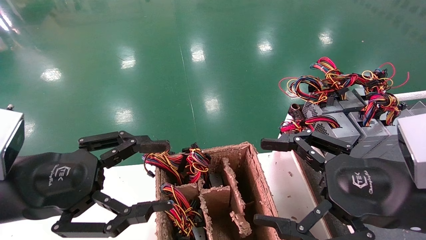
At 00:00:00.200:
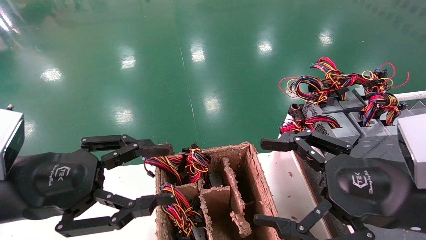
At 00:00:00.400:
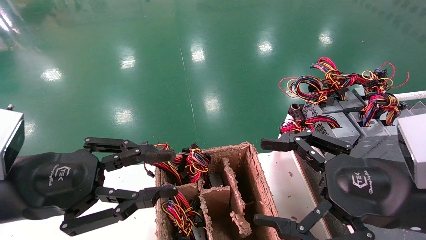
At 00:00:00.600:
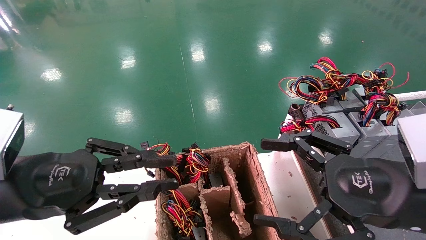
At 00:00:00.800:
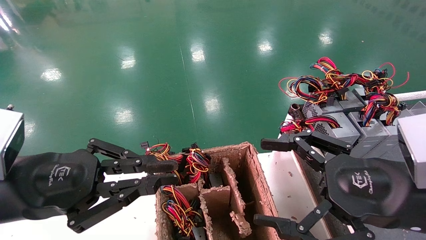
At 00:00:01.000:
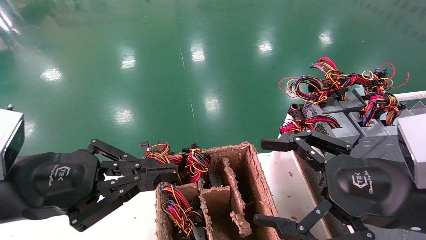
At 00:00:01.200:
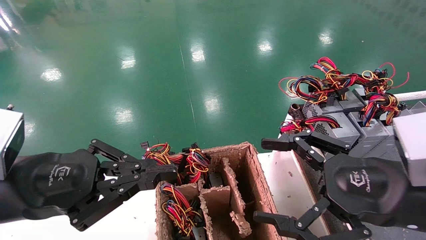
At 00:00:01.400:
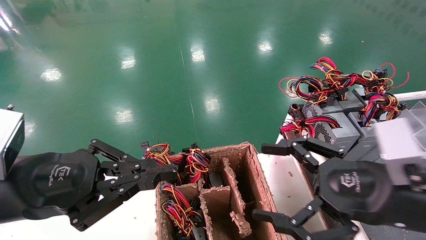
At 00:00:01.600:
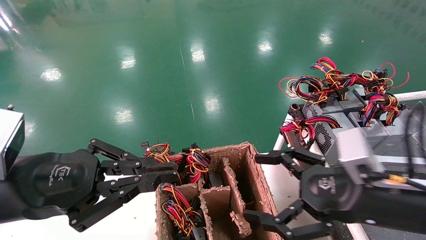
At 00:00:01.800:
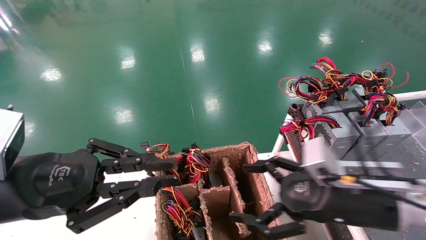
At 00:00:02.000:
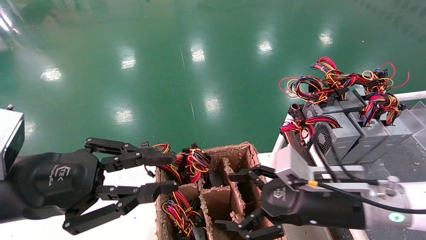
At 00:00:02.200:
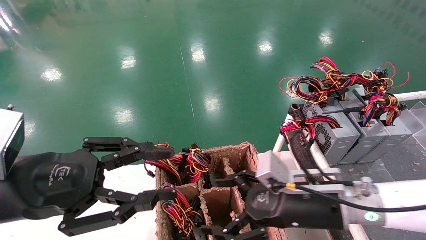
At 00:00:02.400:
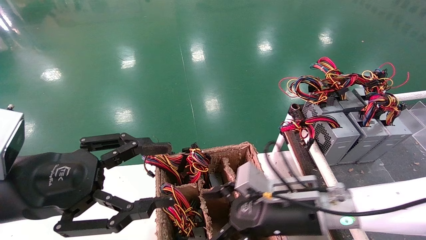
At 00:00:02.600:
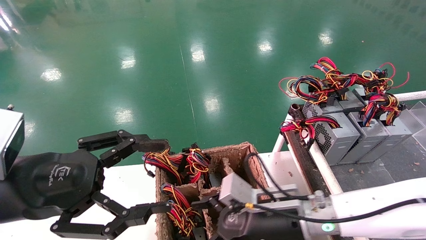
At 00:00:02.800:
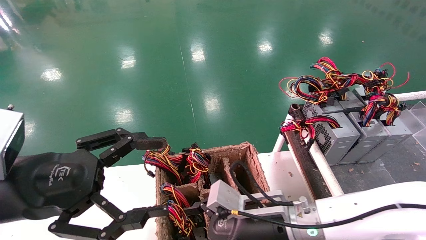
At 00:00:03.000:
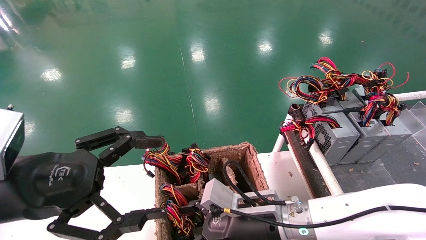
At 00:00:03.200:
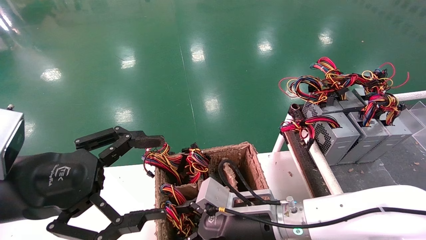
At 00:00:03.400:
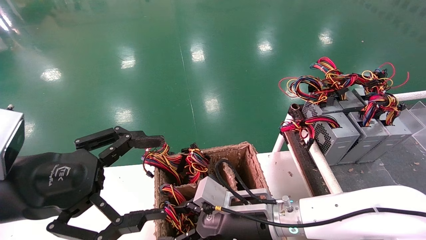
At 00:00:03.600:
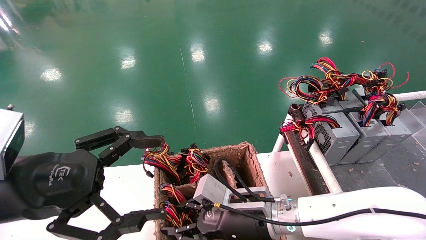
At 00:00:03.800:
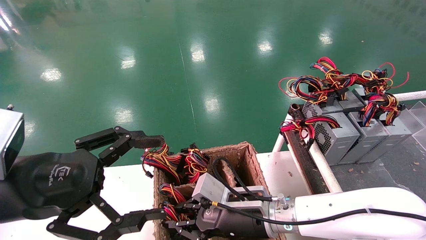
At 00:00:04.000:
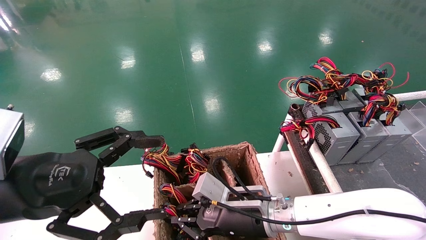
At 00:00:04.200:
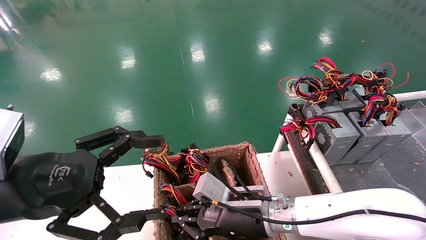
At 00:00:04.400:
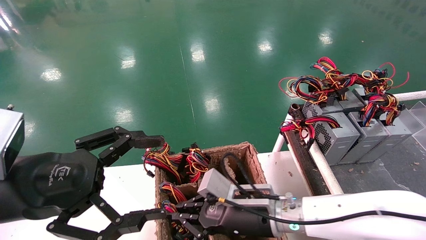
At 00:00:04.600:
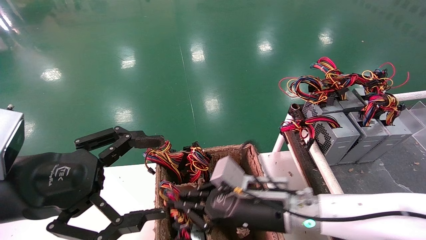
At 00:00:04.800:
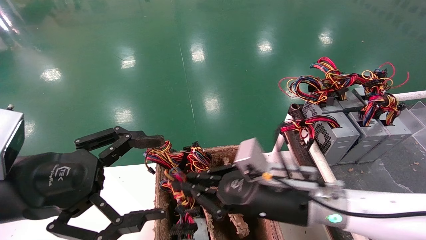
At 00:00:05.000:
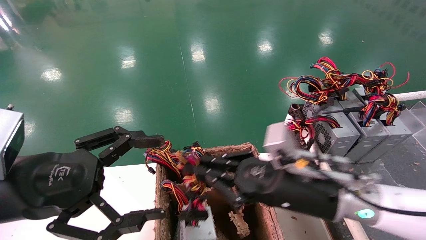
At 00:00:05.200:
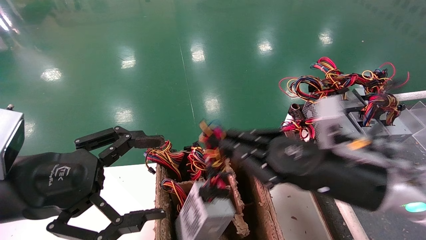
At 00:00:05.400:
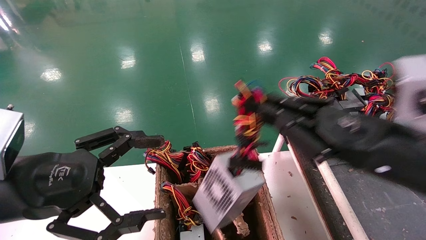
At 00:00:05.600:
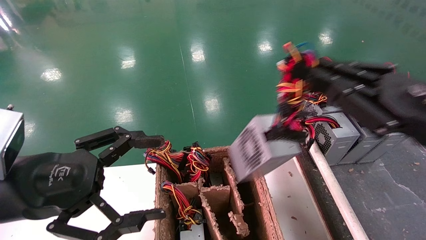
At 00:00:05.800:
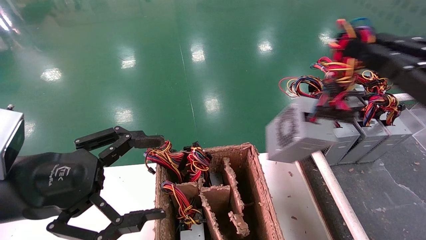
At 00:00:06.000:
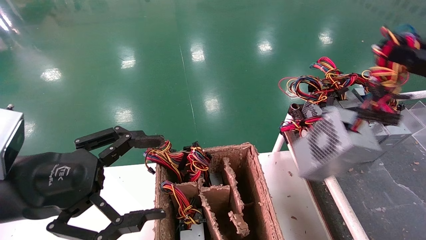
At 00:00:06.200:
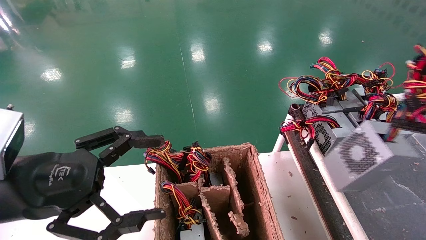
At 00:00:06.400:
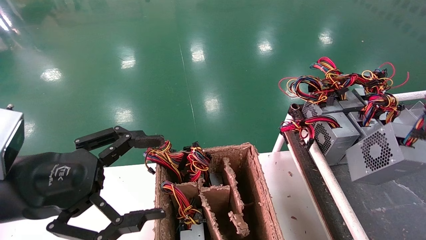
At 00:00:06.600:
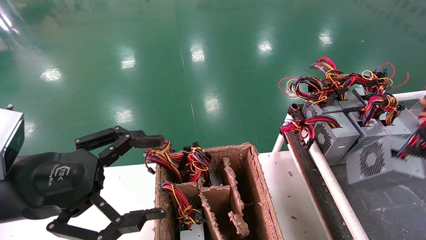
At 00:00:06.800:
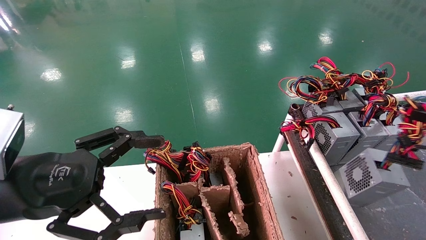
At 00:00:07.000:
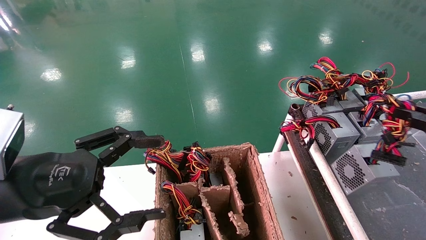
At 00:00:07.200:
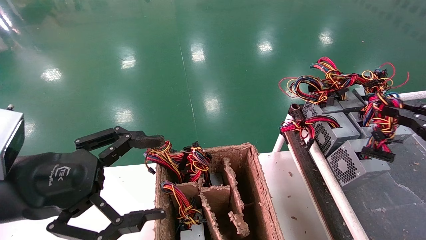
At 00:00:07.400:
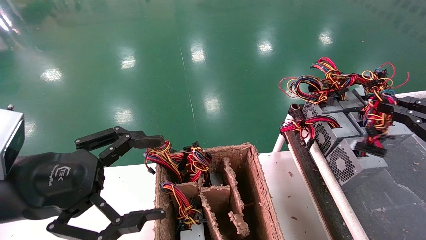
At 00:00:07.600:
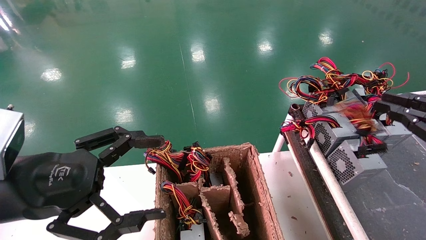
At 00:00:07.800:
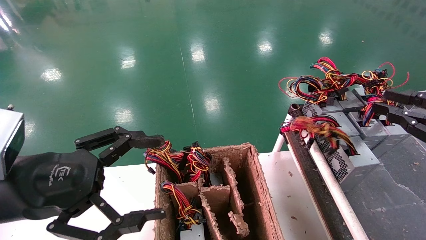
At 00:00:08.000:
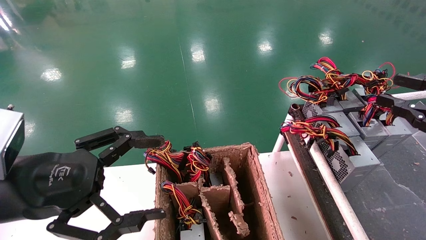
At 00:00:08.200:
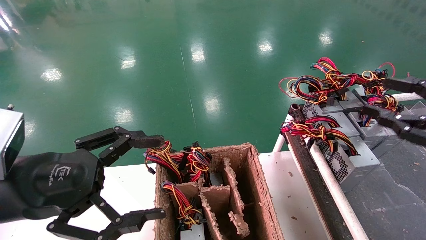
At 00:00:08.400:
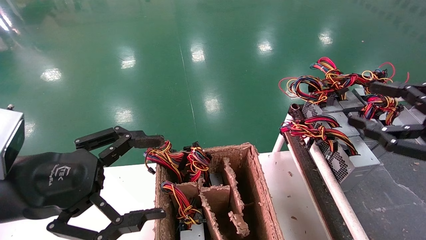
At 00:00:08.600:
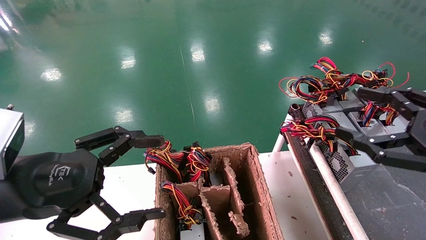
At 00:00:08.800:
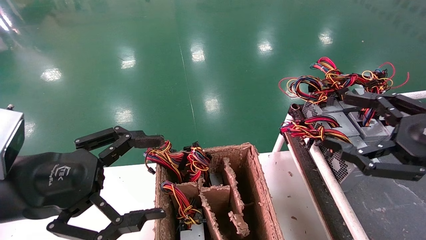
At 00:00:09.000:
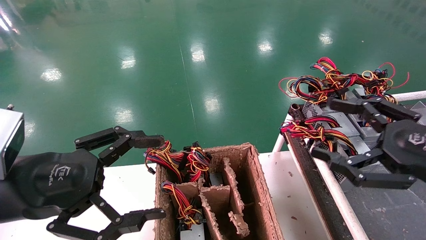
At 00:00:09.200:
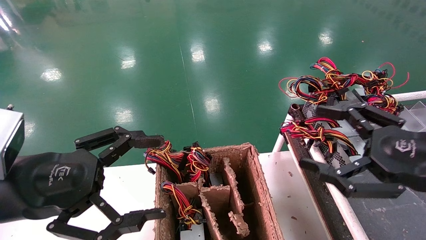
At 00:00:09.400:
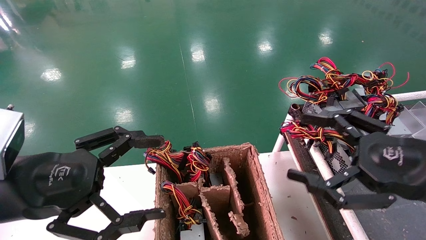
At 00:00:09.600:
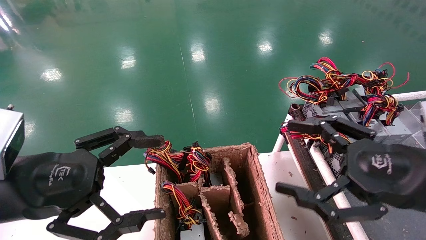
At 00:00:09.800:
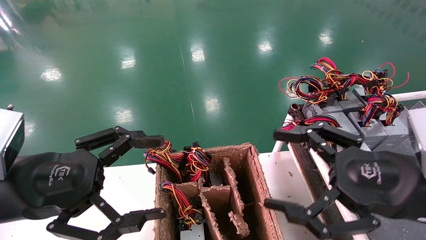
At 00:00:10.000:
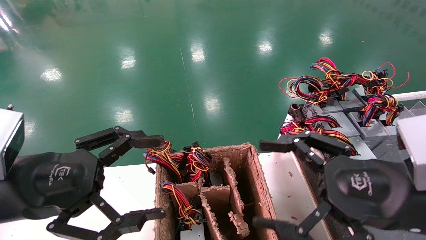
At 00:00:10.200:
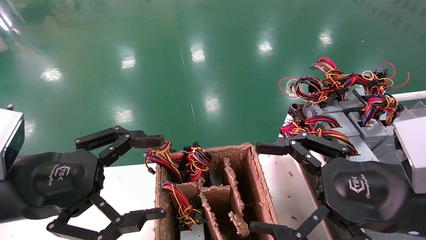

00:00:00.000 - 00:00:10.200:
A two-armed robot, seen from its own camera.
Step, 00:00:01.600 - 00:00:04.200: Grab and lift the power supply from the large box.
Step, 00:00:04.400 - 00:00:07.600: Place the power supply on the operating table.
00:00:00.000 - 00:00:01.400: The left gripper closes its fingers.
00:00:01.400 - 00:00:03.000: The left gripper opens up; the right gripper travels to the left, downward and forward by roughly 20 cm.
00:00:03.000 - 00:00:04.400: The right gripper closes its fingers.
00:00:04.400 - 00:00:05.800: The right gripper travels to the right, upward and backward by roughly 35 cm.
00:00:05.800 - 00:00:07.200: The right gripper is displaced to the right by roughly 10 cm.
00:00:07.200 - 00:00:08.800: The right gripper is displaced to the left by roughly 10 cm, and opens its fingers.
00:00:08.800 - 00:00:10.200: The right gripper shifts about 10 cm to the left.

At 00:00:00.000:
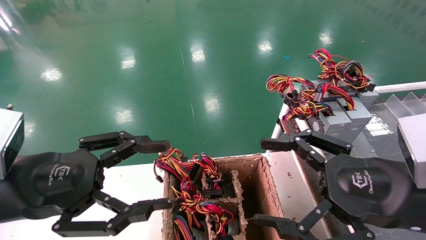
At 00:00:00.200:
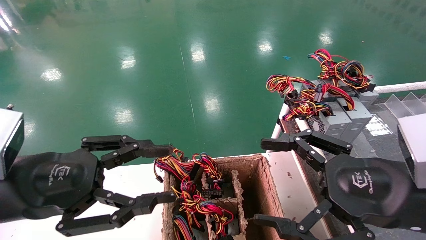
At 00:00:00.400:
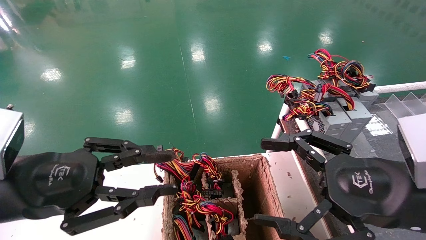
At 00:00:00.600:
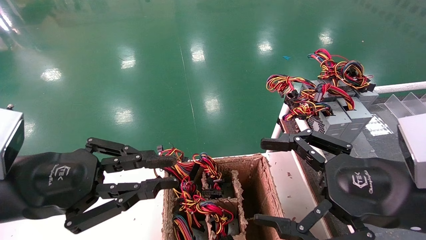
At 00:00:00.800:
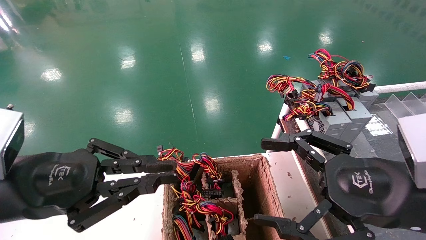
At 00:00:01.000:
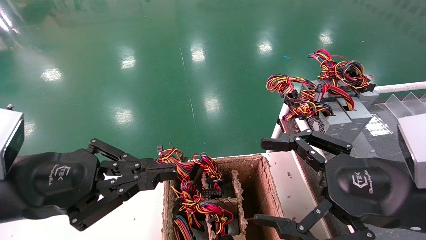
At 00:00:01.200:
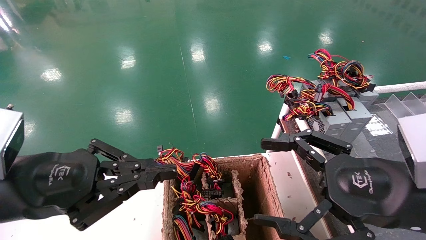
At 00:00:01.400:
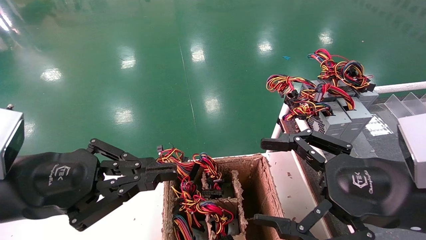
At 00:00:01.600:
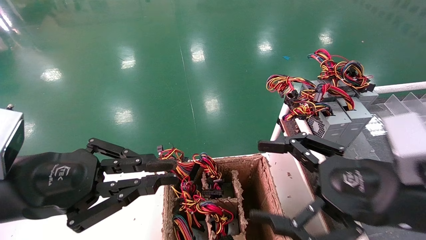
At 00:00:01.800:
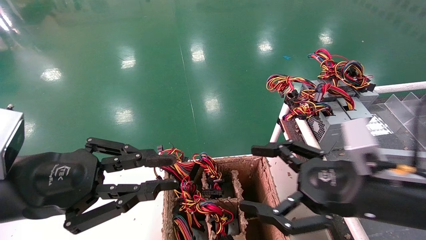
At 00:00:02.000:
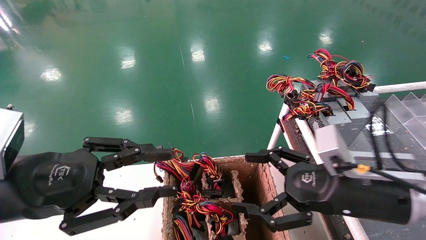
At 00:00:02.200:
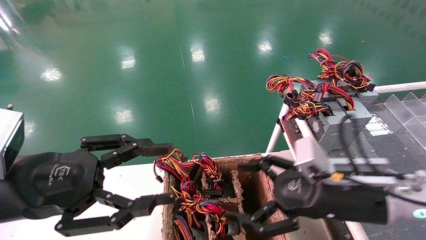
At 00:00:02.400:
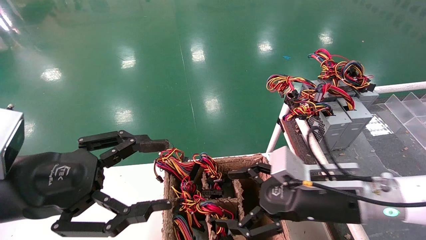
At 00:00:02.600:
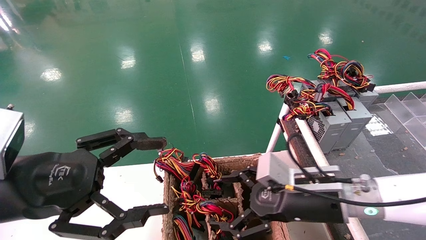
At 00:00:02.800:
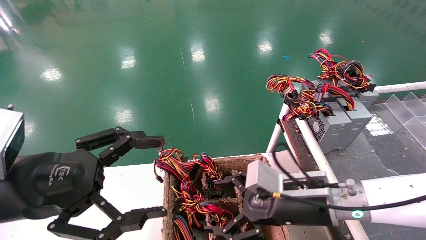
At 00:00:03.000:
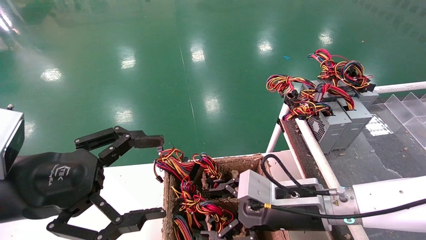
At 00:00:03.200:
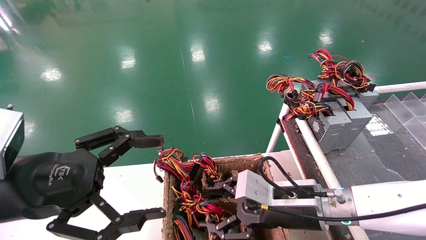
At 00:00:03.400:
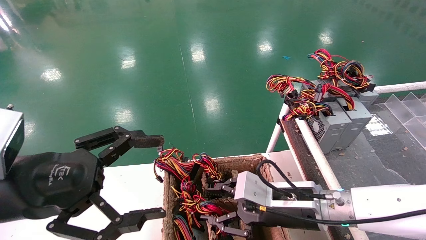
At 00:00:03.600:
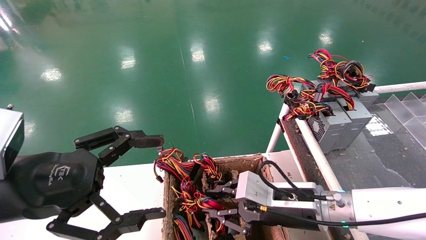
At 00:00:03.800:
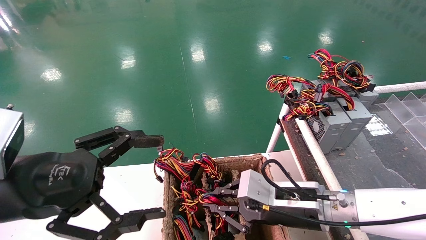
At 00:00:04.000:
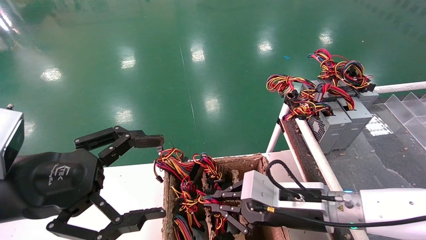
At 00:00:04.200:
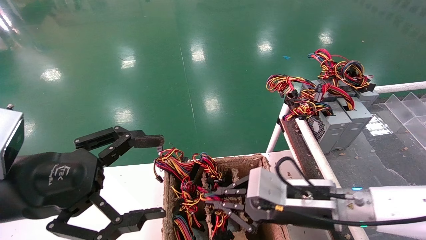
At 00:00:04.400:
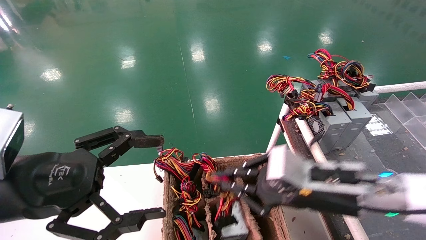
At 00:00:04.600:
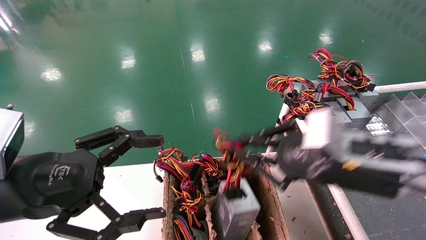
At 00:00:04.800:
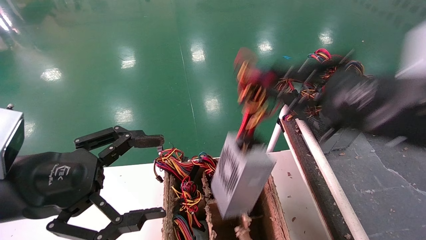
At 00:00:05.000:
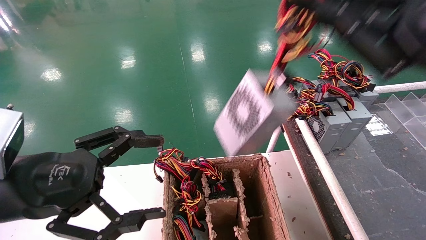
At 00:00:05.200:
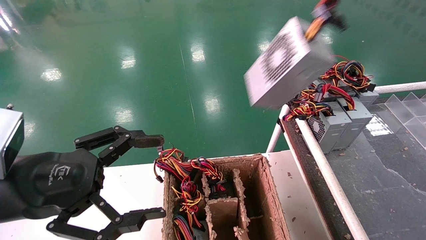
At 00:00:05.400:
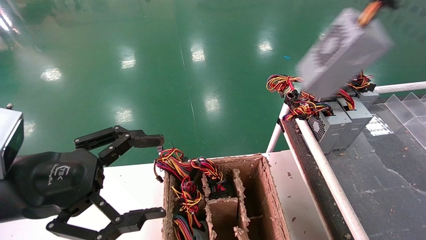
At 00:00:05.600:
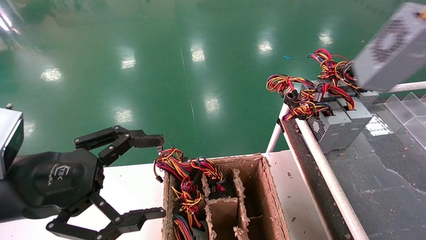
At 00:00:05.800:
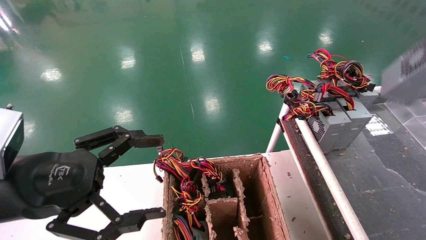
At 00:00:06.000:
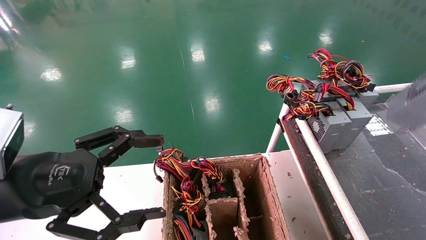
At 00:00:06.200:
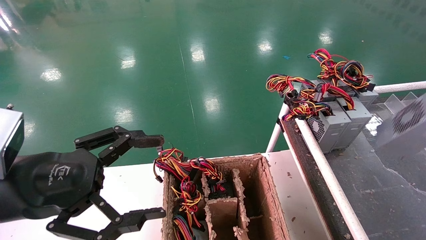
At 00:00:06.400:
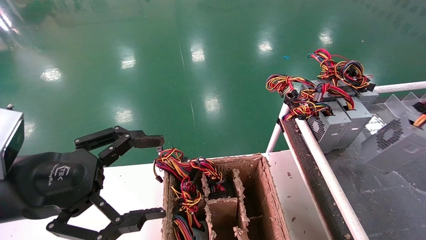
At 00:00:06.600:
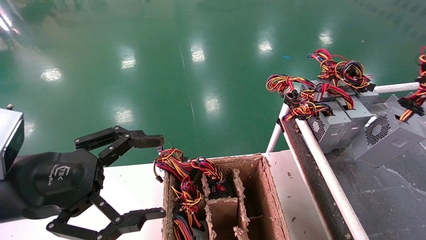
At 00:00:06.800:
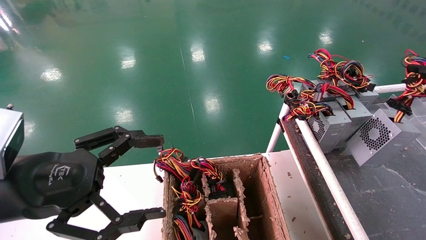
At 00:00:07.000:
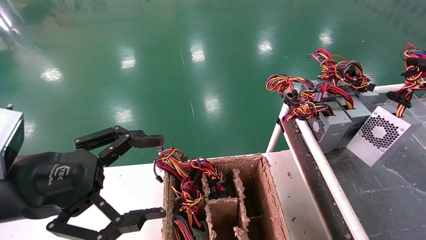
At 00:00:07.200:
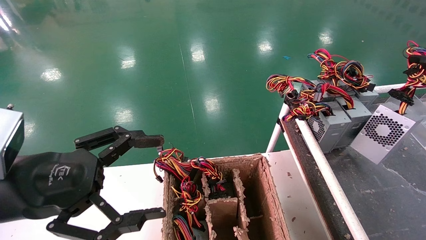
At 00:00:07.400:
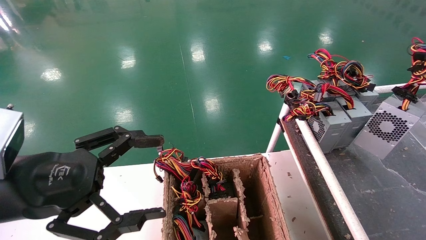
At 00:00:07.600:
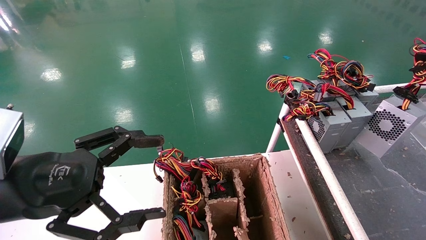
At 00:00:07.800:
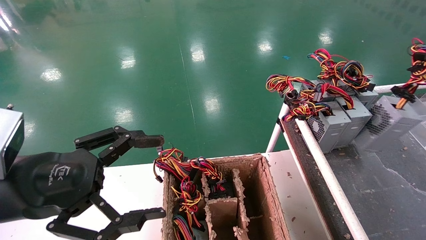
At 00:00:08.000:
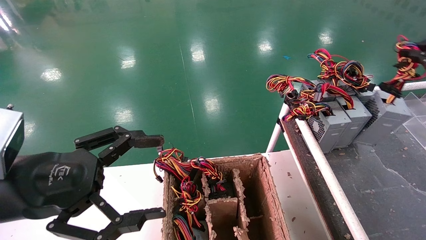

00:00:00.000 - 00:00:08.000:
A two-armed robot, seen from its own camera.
Step, 00:00:01.800 - 00:00:04.000: Grab and lift the power supply from the large box.
00:00:00.000 - 00:00:01.600: The left gripper closes.
00:00:01.600 - 00:00:03.200: The right gripper travels to the left, downward and forward by some 15 cm. The left gripper opens.
00:00:03.200 - 00:00:04.800: The right gripper shifts some 20 cm upward, to the right and backward, and closes.
00:00:04.800 - 00:00:06.400: The right gripper heads to the right, covering approximately 25 cm.
00:00:06.400 - 00:00:08.000: The right gripper is displaced forward by about 10 cm.
